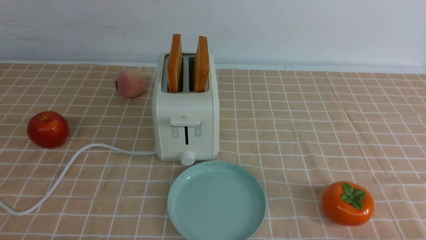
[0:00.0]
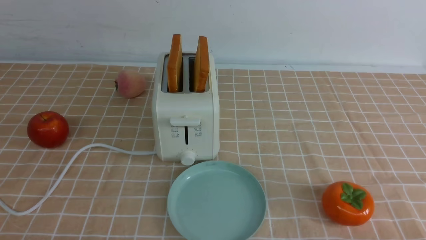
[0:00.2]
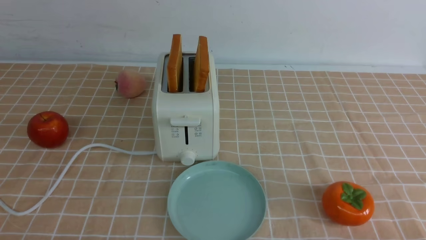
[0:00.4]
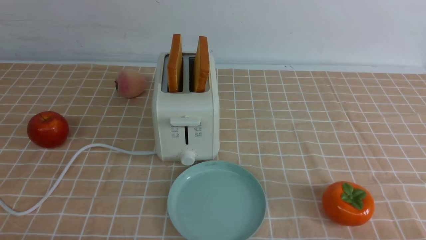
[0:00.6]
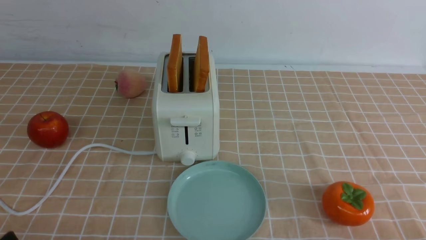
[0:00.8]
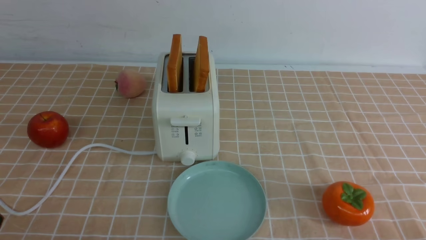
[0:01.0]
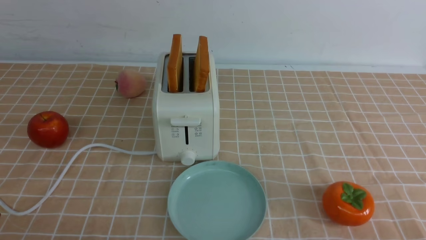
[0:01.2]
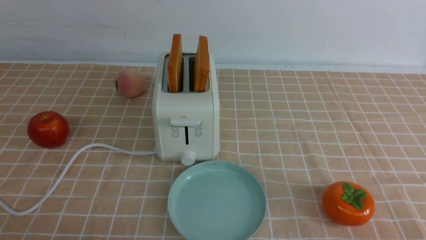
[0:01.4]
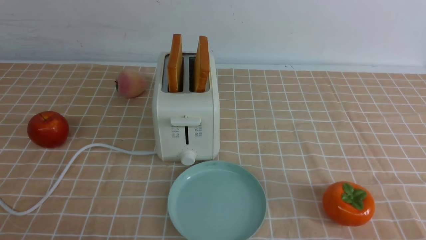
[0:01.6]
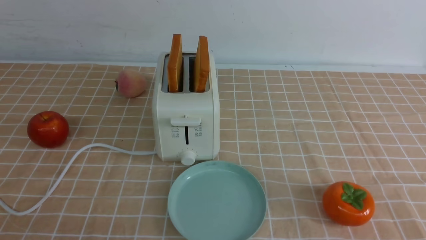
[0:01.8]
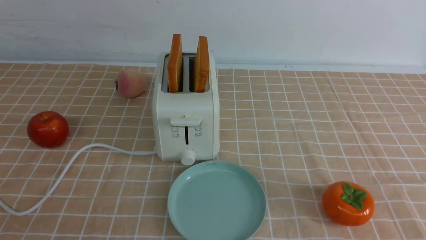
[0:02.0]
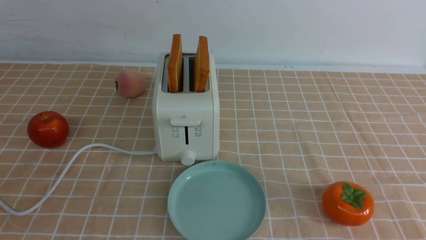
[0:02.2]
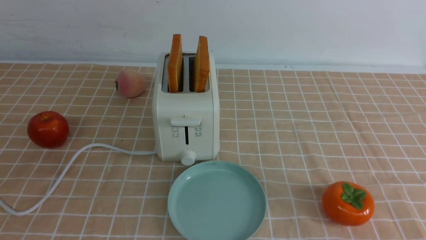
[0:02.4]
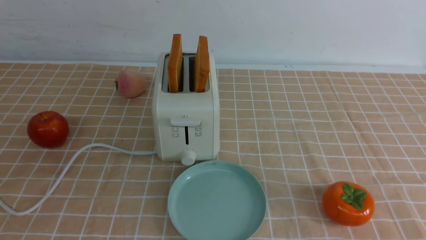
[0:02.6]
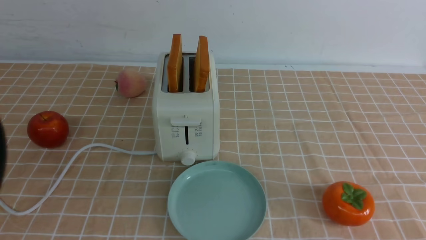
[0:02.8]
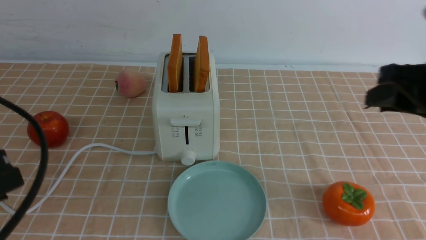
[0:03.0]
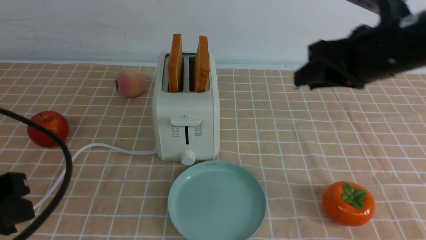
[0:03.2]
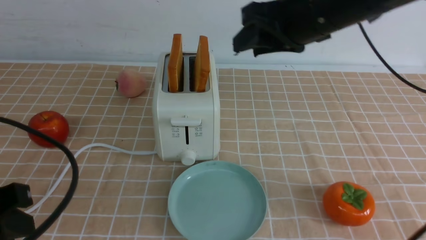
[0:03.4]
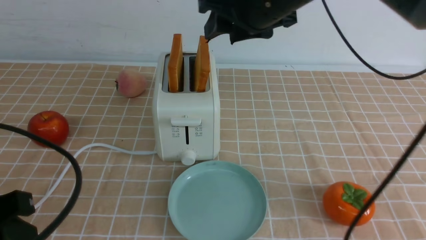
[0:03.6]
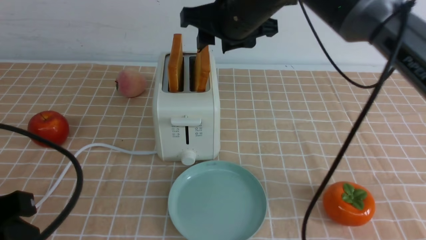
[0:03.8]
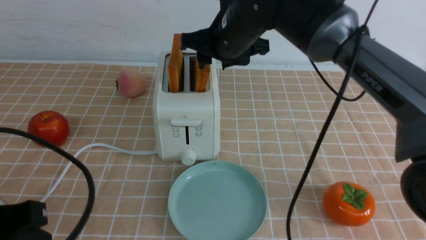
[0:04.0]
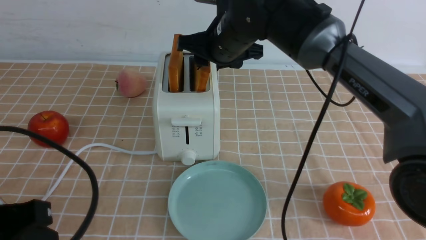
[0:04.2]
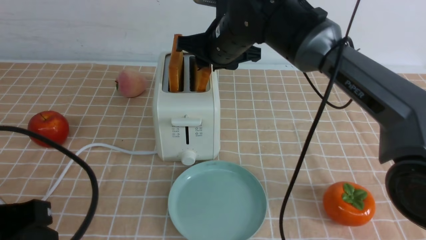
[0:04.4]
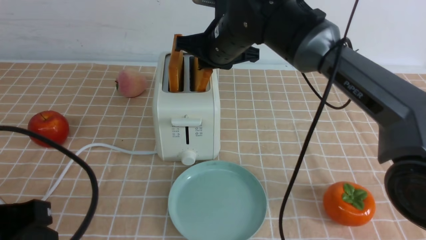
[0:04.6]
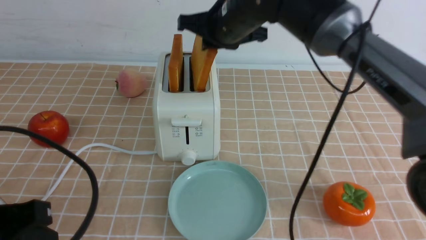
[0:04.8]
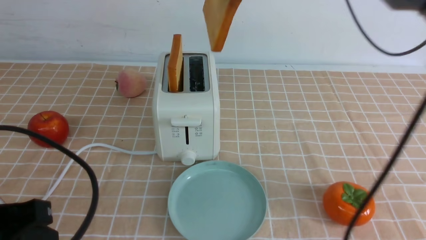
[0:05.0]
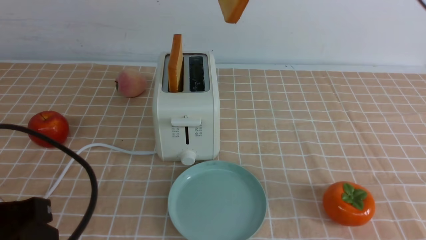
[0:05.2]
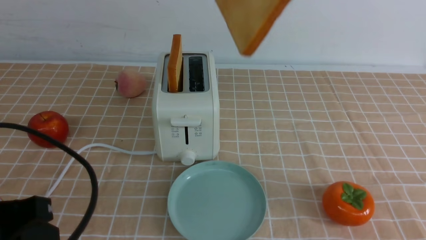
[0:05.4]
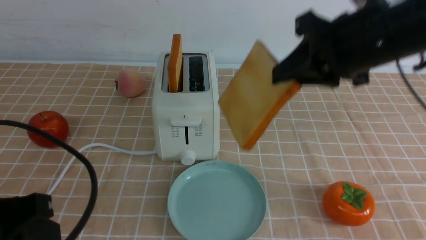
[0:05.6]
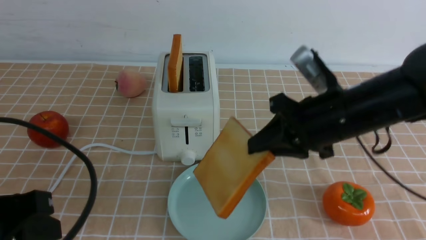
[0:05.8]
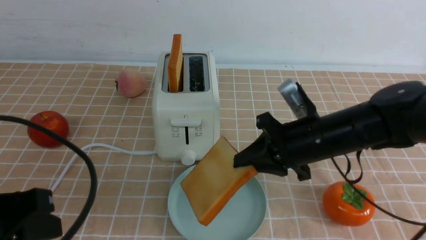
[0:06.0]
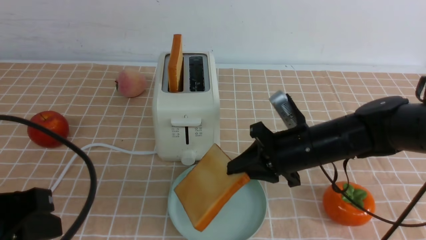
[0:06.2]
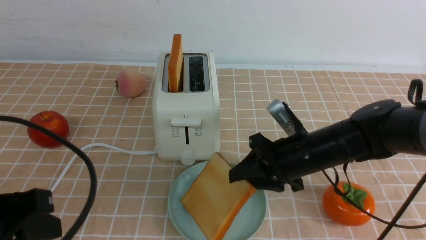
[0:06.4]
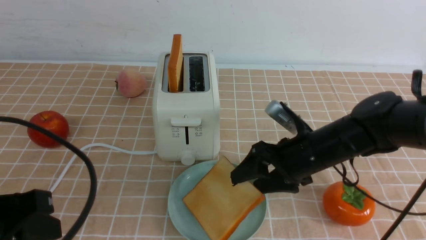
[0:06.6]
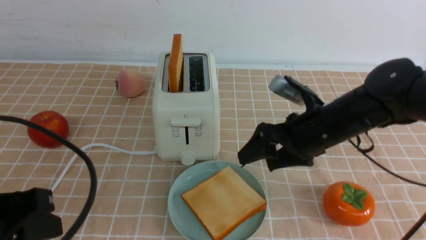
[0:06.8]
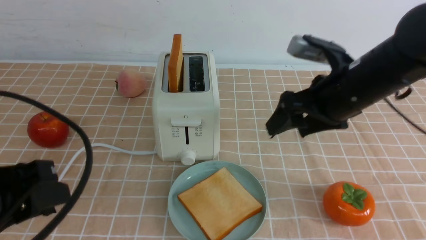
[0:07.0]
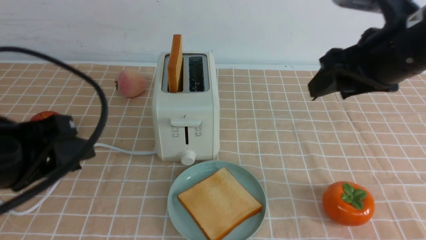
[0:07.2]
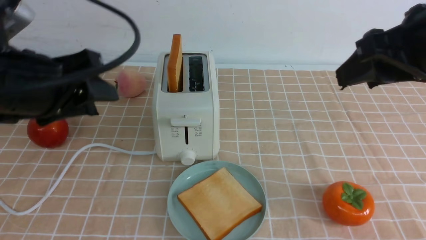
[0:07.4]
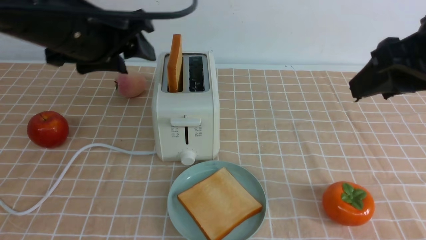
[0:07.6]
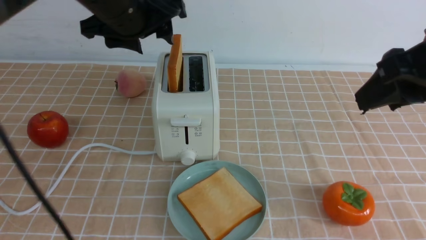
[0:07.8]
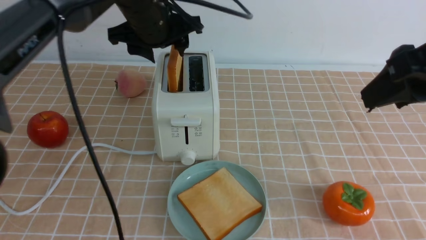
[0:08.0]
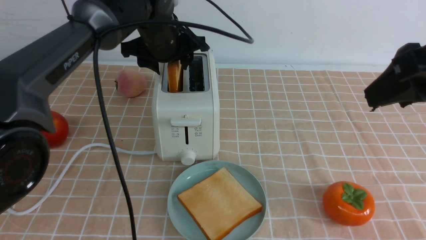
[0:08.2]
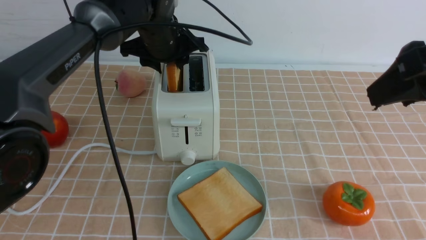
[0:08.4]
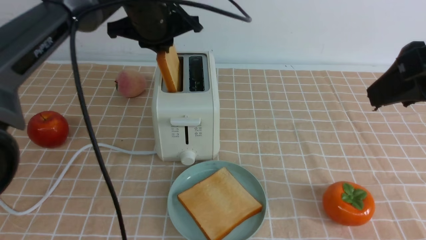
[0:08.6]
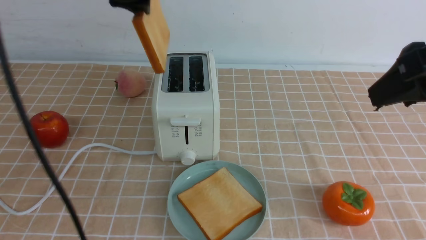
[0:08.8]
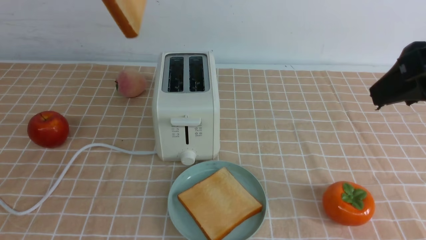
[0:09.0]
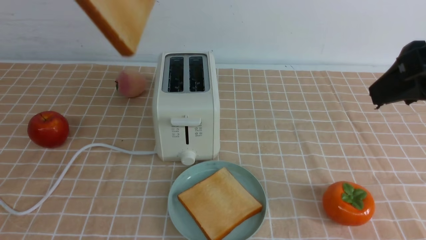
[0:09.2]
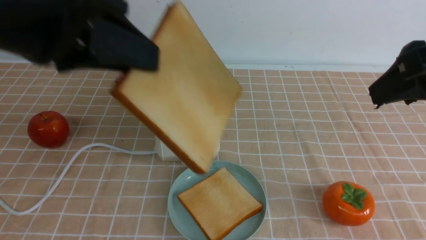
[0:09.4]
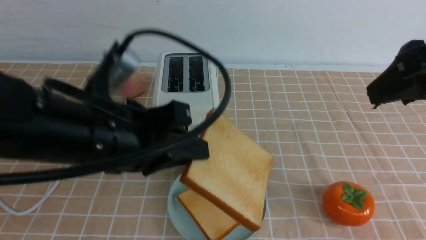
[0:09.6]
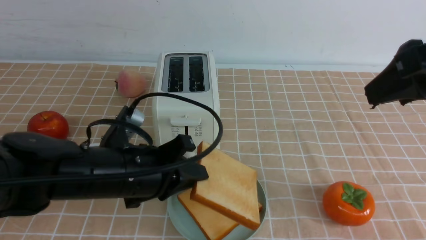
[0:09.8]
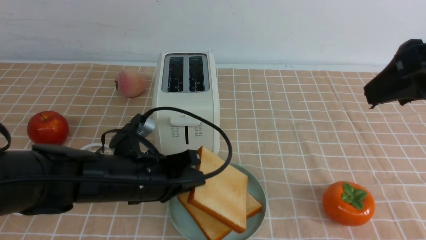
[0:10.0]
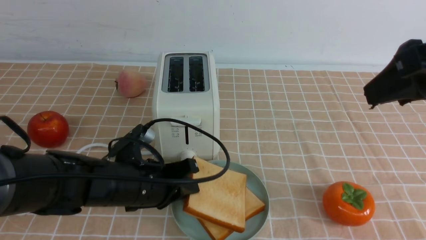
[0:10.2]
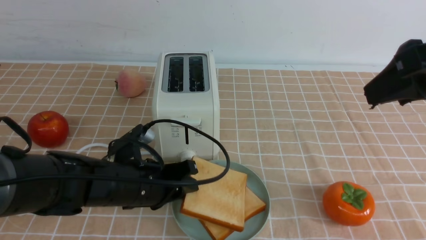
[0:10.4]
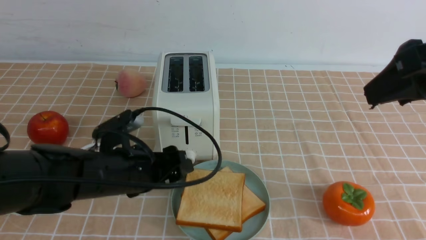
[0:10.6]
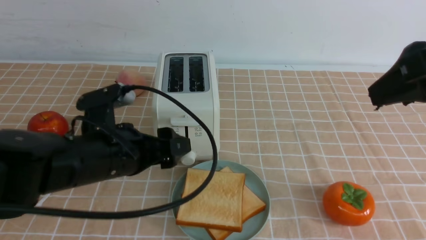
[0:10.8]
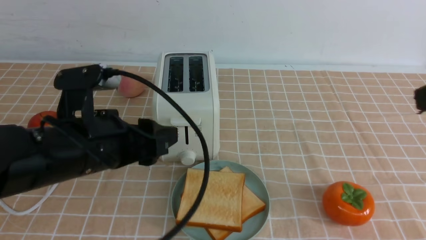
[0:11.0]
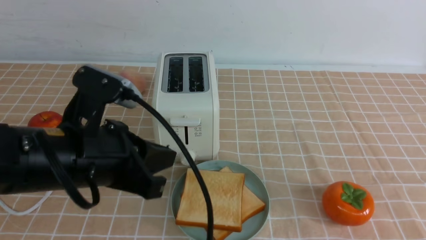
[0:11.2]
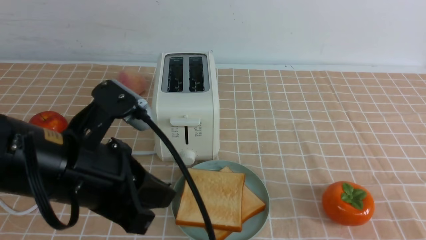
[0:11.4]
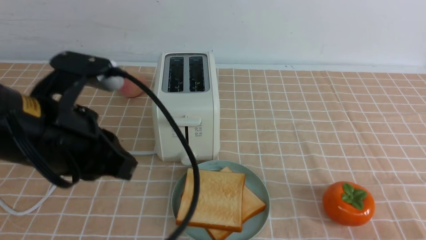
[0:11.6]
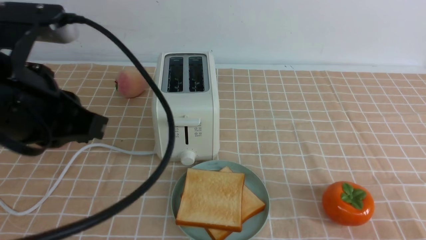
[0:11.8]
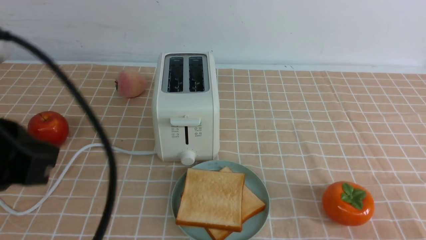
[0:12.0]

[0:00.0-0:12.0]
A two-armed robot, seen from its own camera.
Task of the whole recording: take toasted bread from bread machine on light coffee tablecloth place on plate.
Step, 0:00.0 to 0:04.6: use the right arm to take out a slice of bread.
Step, 0:05.0 to 0:06.6: use the right arm to put a slice of bread into the plate.
Step, 0:07.0 to 0:08.6: use the left arm to take out a slice of bread.
Step, 0:09.0 to 0:10.8: use the left arm to put a slice of bread into the empty plate.
0:01.6 to 0:03.0: The right gripper heads forward and upward, covering roughly 25 cm. The left gripper goes about 15 cm upward and forward.
0:03.0 to 0:04.4: The right gripper moves to the left and forward, approximately 30 cm.
0:04.4 to 0:06.0: The right gripper moves to the right and backward, some 15 cm, and reaches some 15 cm upward, then returns.
0:06.0 to 0:07.6: The left gripper goes roughly 20 cm forward and upward; the right gripper is displaced upward, backward and to the right by some 20 cm, and opens.
0:07.6 to 0:09.0: The left gripper moves upward, some 10 cm, reaches roughly 15 cm forward, then returns, and closes.
0:09.0 to 0:10.4: The left gripper travels downward by about 30 cm.
0:10.4 to 0:12.0: The left gripper heads upward and backward, covering some 25 cm, and closes its fingers; the right gripper heads downward and backward, covering roughly 20 cm, and closes its fingers.

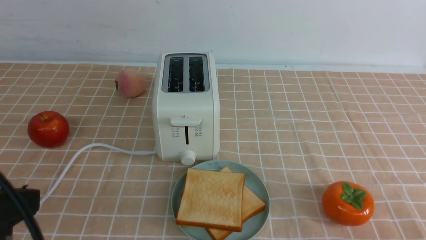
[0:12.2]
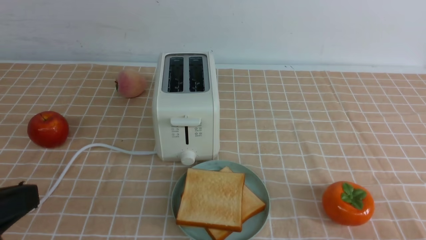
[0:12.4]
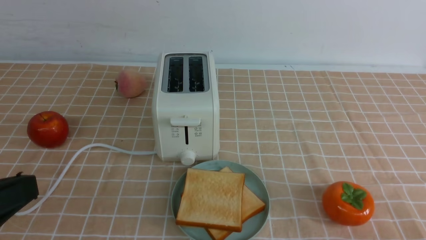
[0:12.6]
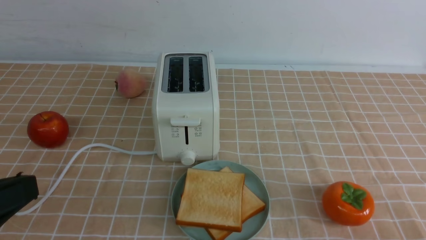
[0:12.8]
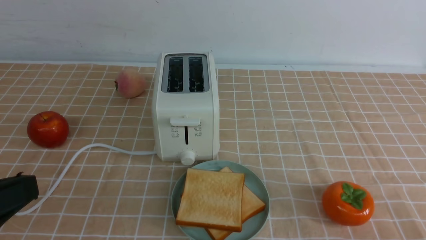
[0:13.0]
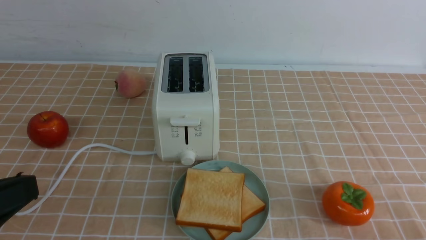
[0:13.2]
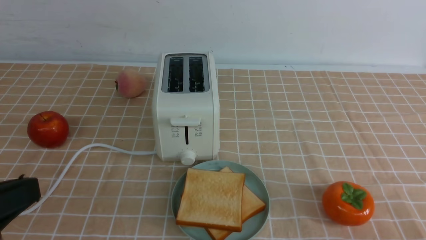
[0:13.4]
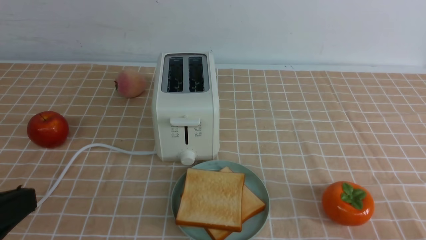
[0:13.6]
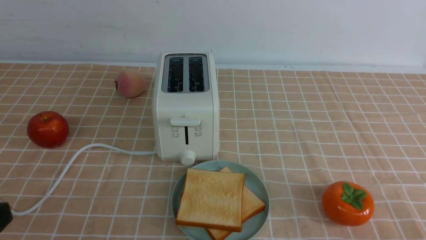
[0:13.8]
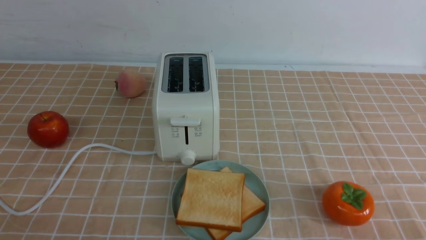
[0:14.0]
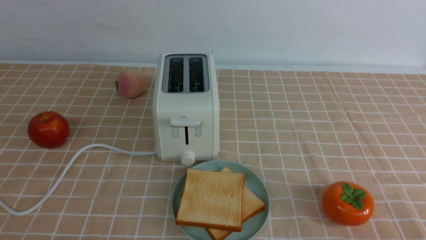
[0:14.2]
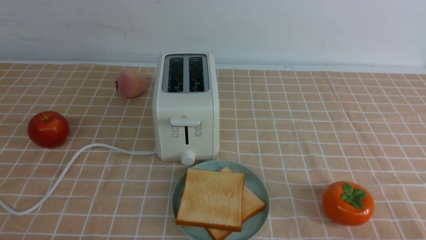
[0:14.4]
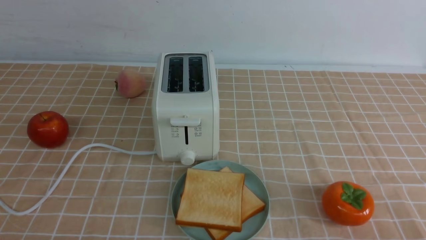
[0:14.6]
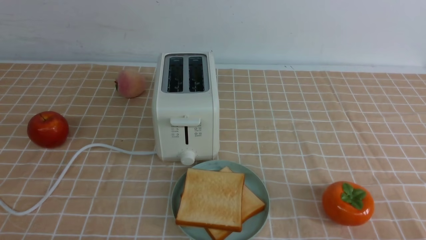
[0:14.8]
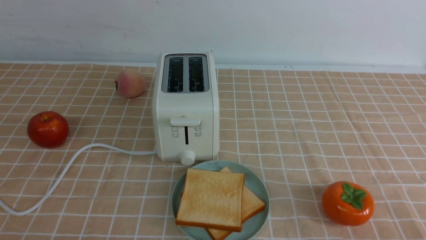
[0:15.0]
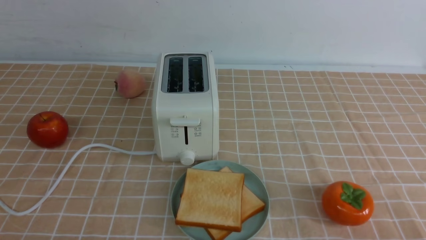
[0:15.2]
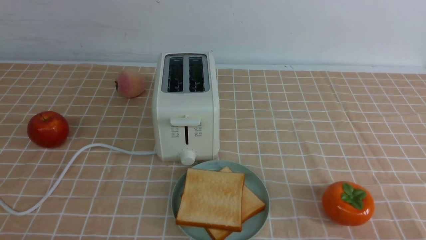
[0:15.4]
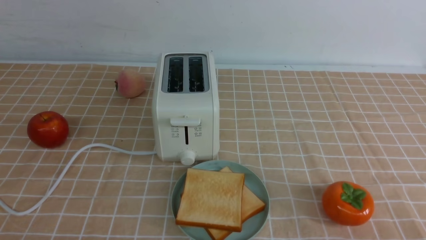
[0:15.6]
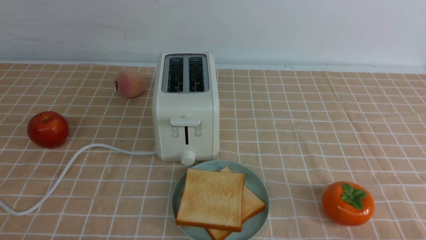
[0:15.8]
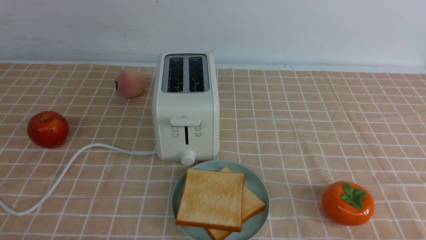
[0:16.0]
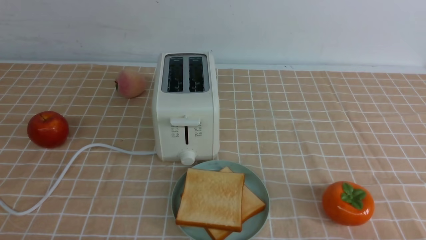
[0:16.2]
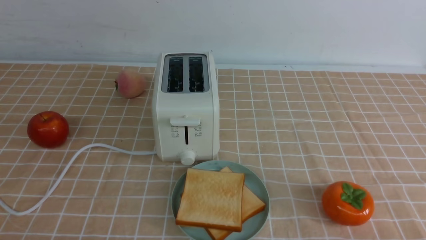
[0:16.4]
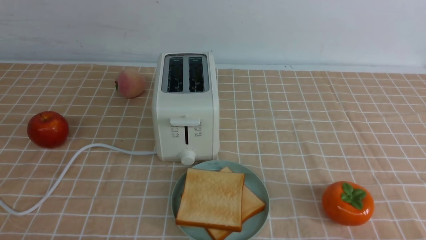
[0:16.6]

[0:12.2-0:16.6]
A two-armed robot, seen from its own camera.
Task of the whole recording: take toasted bread from bread machine on light coffee tablecloth place on plate.
0:12.2 to 0:13.6: The left gripper shifts by approximately 5 cm.
0:13.6 to 0:15.2: The left gripper is displaced downward by about 15 cm.
